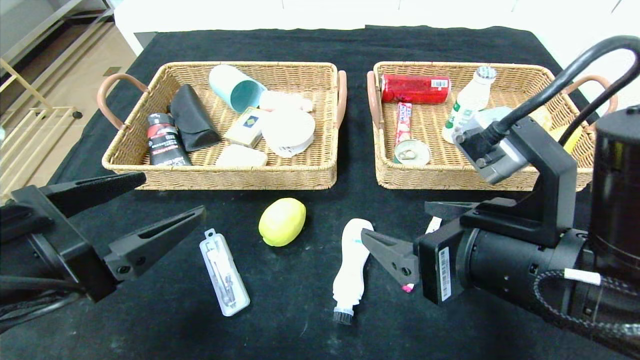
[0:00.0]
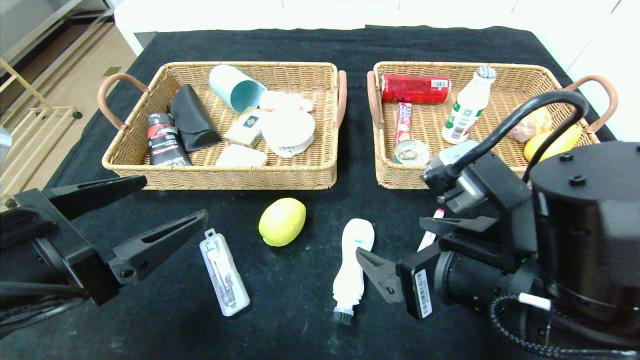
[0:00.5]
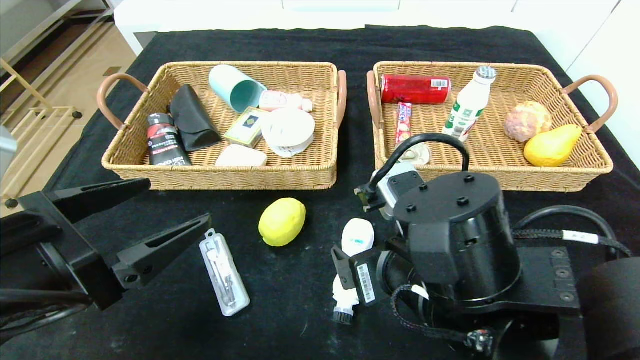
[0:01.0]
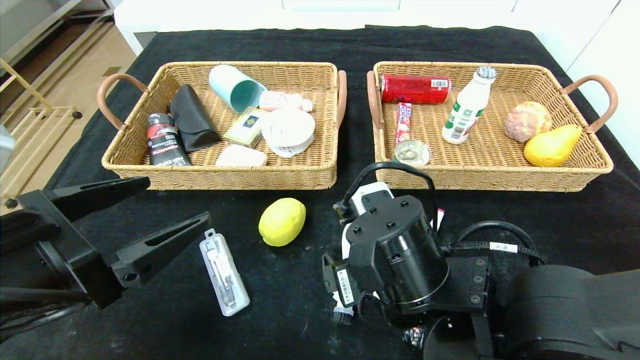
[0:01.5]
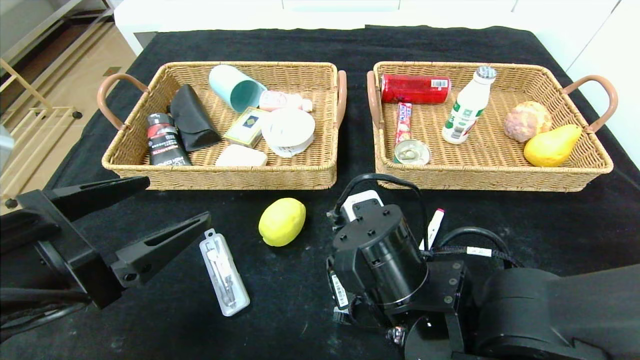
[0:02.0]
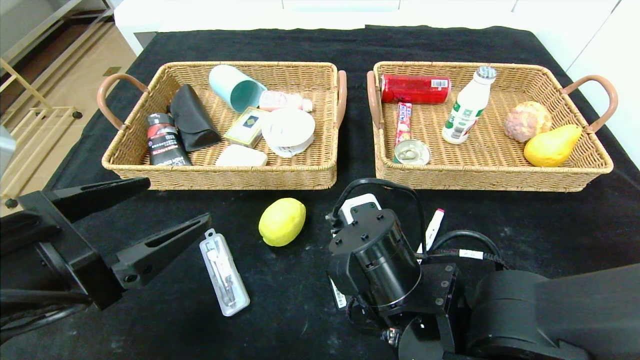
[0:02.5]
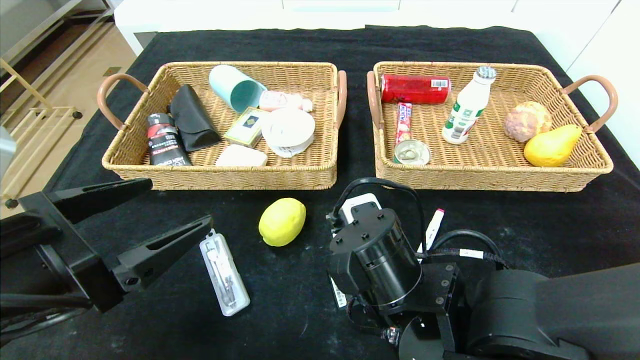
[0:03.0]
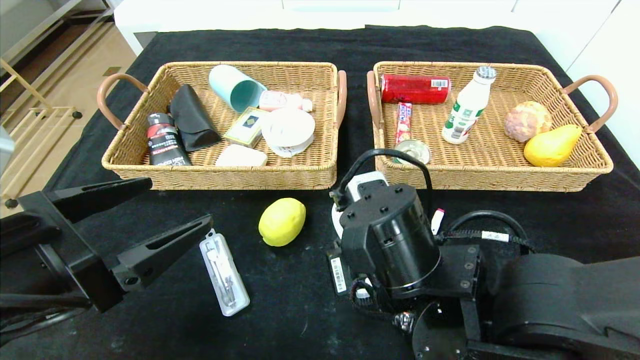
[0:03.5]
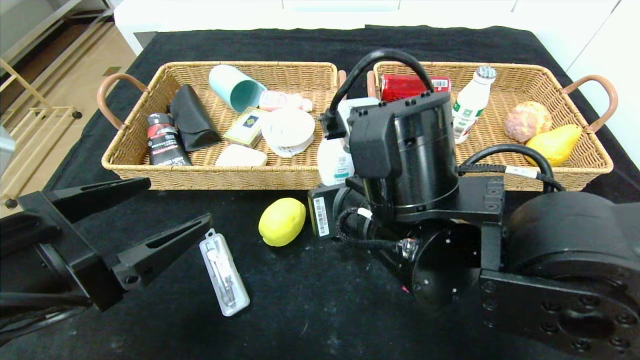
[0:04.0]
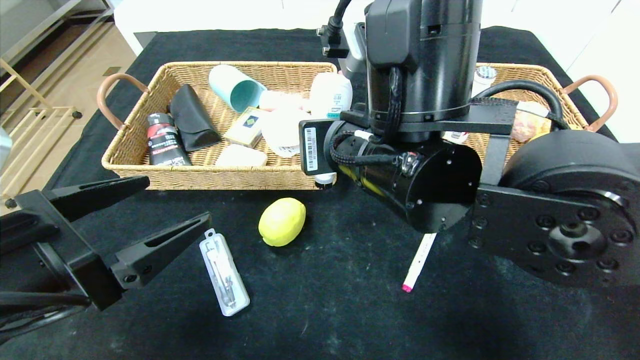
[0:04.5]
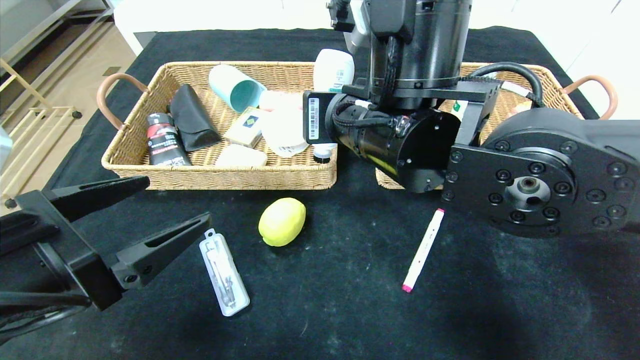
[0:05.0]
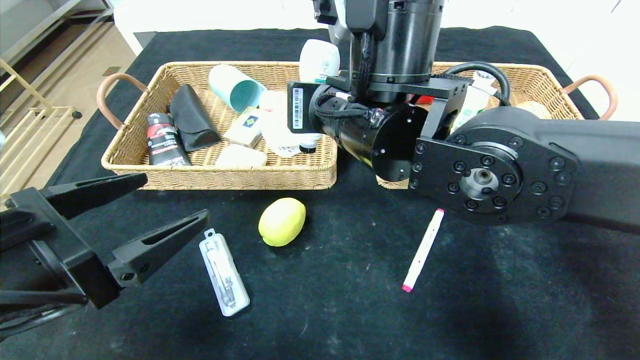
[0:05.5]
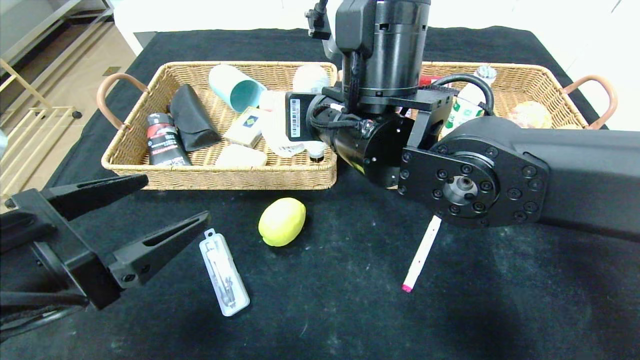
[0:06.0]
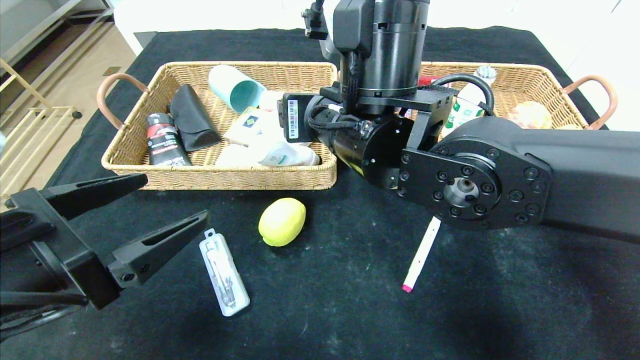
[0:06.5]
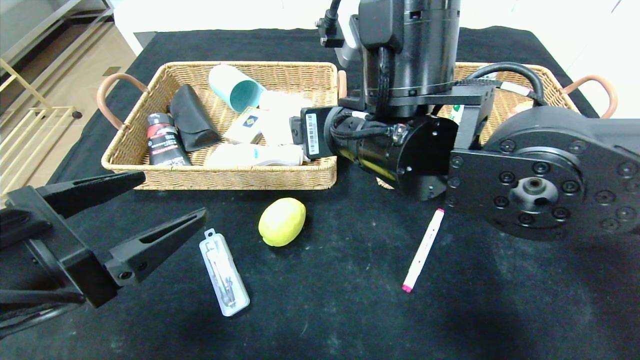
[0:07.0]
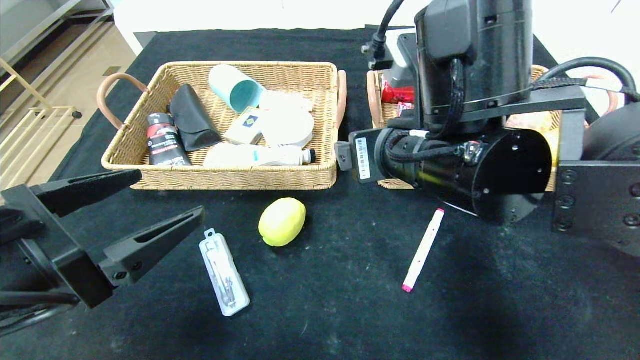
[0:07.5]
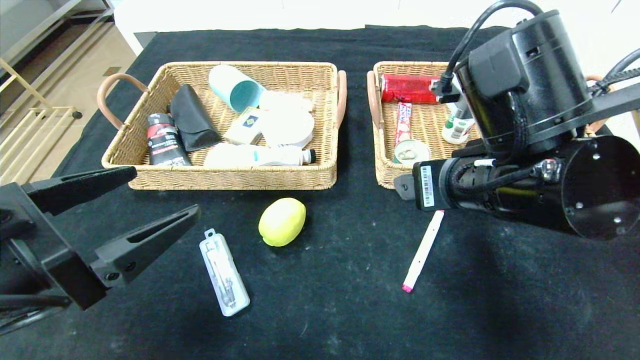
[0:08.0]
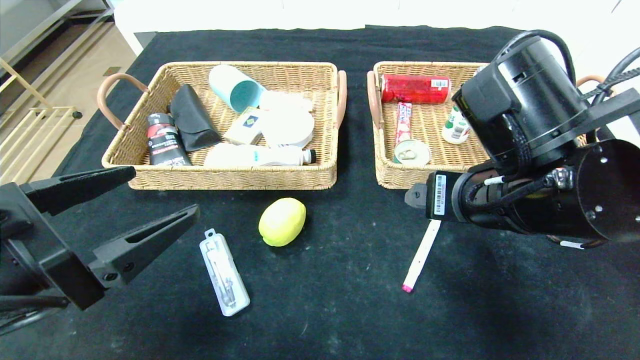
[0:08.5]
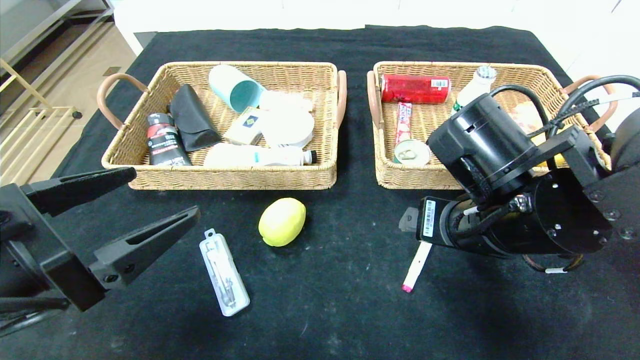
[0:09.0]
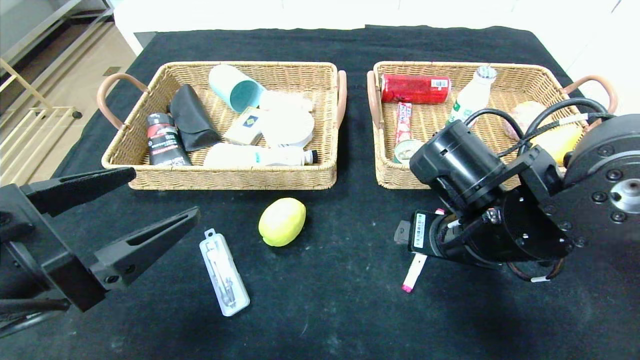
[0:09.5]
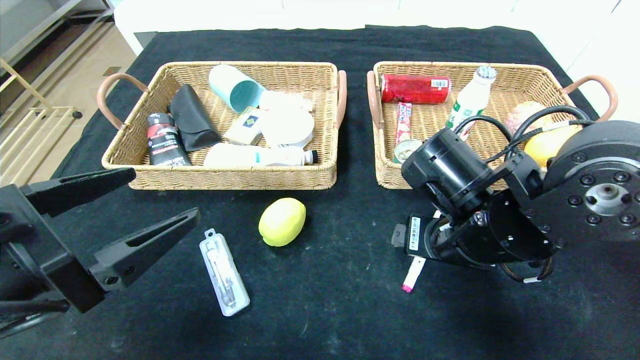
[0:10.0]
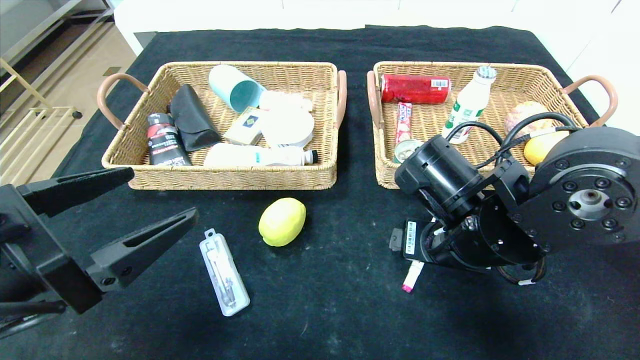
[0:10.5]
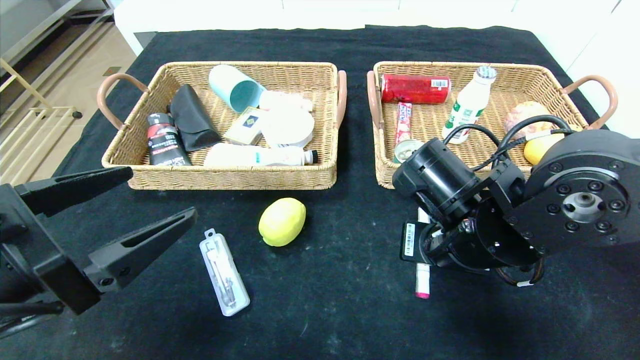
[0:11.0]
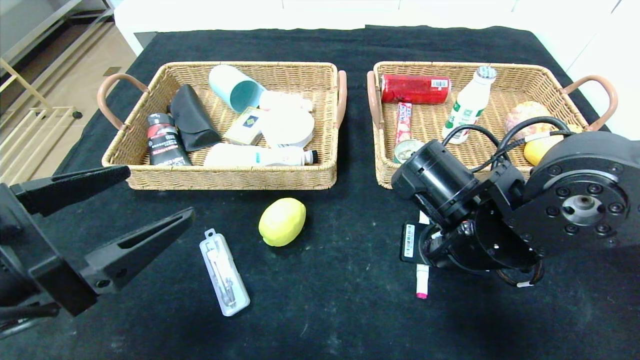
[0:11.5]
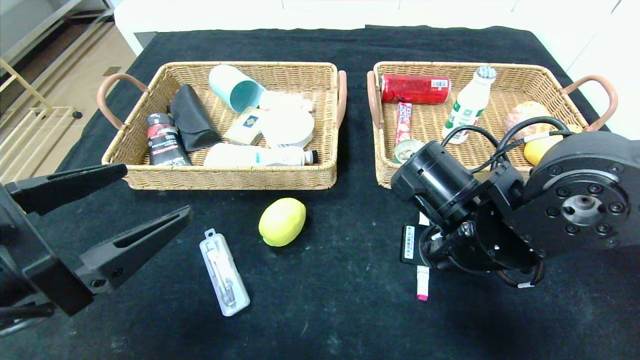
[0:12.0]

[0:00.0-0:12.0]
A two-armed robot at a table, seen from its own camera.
0.0 to 2.0 s: The right gripper shifts about 15 cm downward, to the left and forward.
2.0 to 4.0 s: The right gripper goes about 10 cm upward, and closes its fingers.
4.0 to 6.0 s: The right gripper travels forward and upward by approximately 10 cm.
6.0 to 8.0 s: The right gripper travels to the right and backward by about 15 cm, and opens its fingers.
8.0 to 10.0 s: The right gripper goes approximately 5 cm downward.
10.0 to 12.0 s: The right gripper closes.

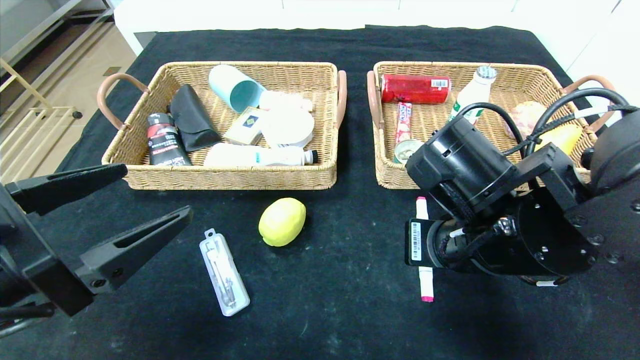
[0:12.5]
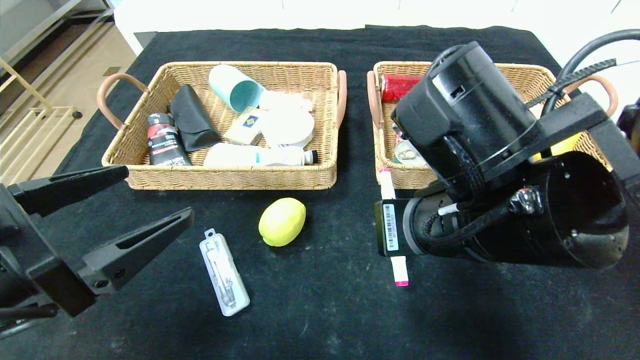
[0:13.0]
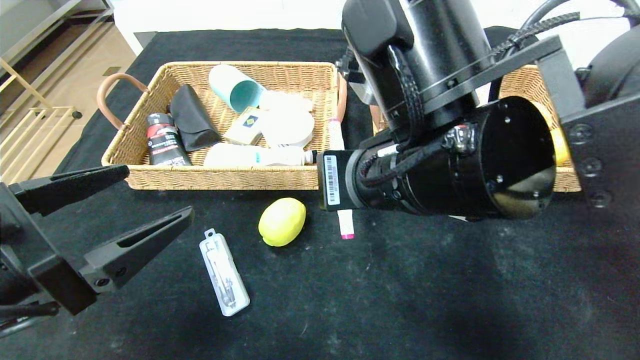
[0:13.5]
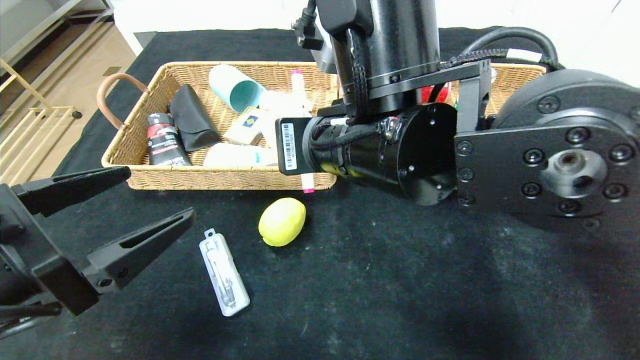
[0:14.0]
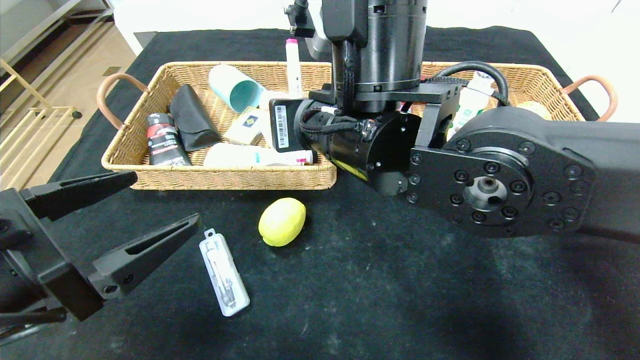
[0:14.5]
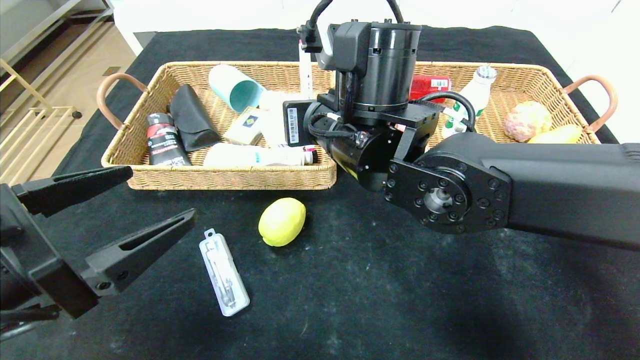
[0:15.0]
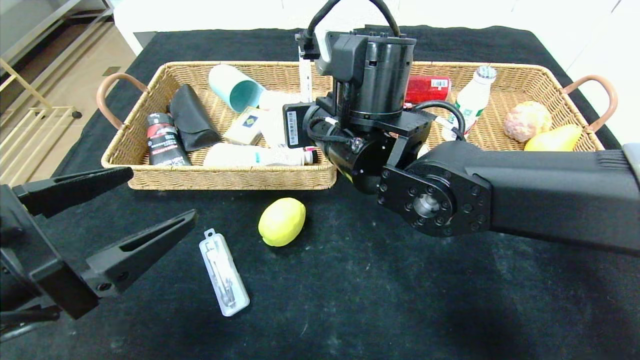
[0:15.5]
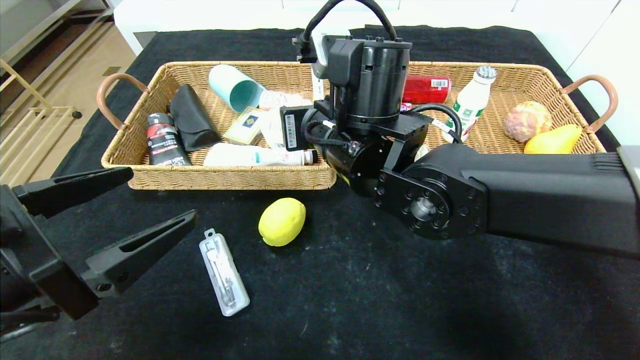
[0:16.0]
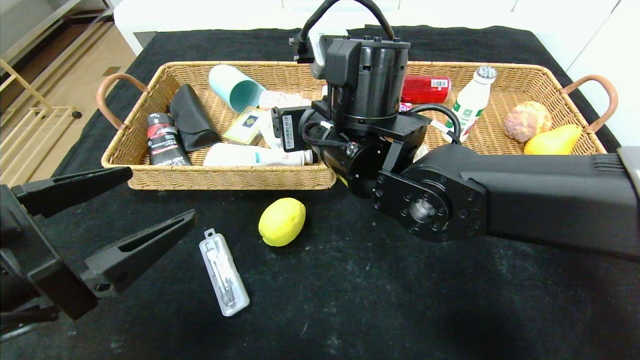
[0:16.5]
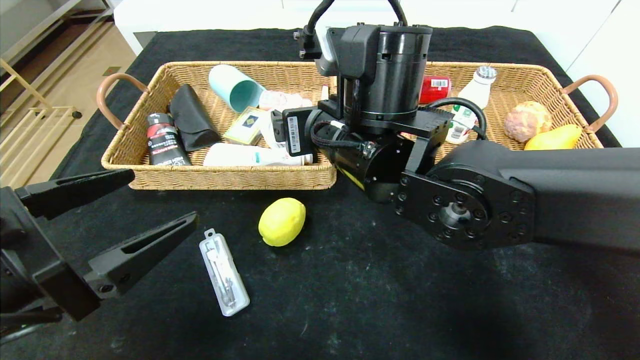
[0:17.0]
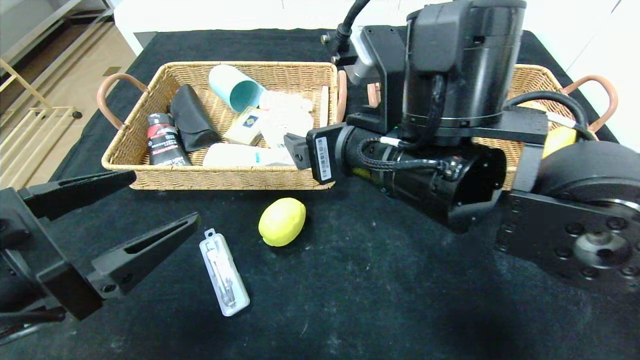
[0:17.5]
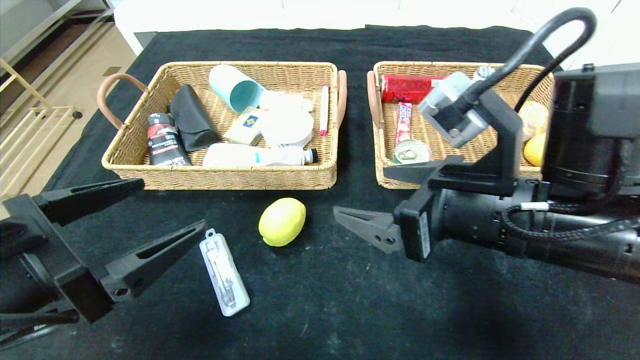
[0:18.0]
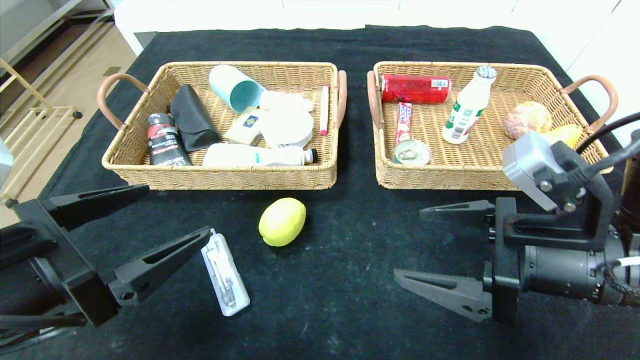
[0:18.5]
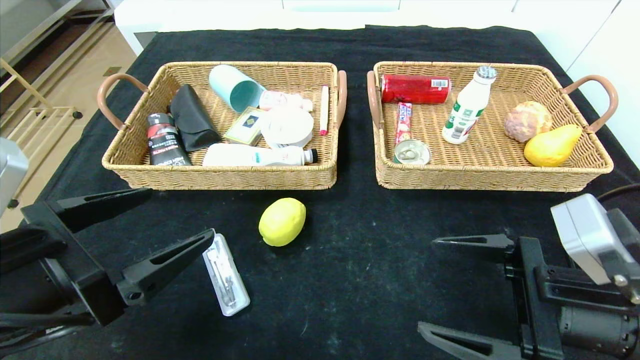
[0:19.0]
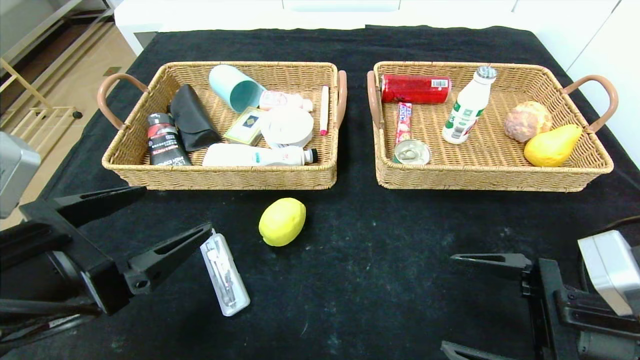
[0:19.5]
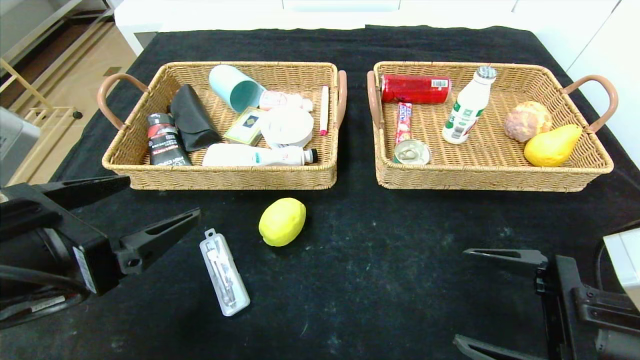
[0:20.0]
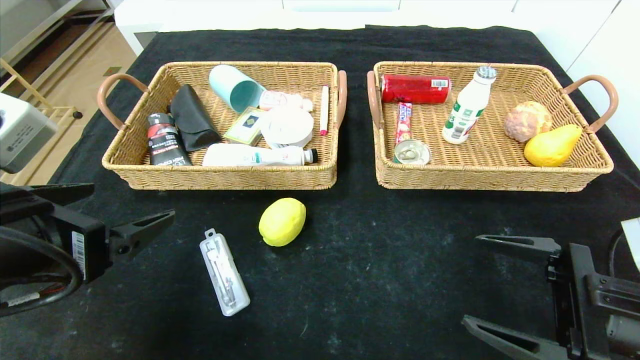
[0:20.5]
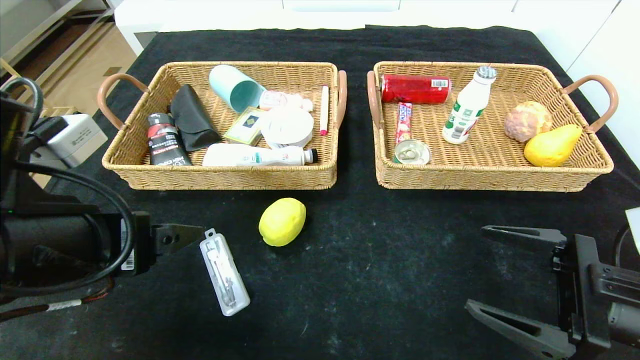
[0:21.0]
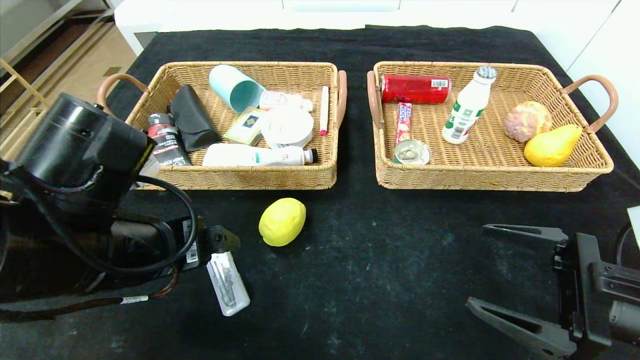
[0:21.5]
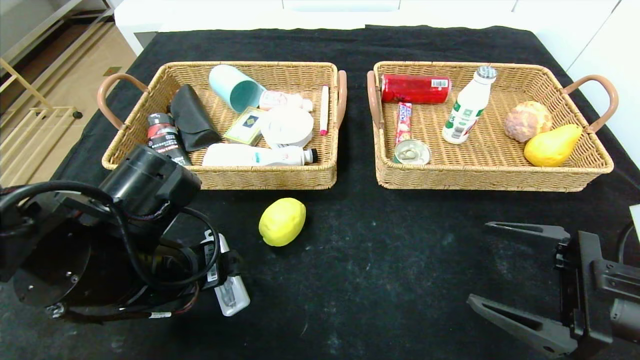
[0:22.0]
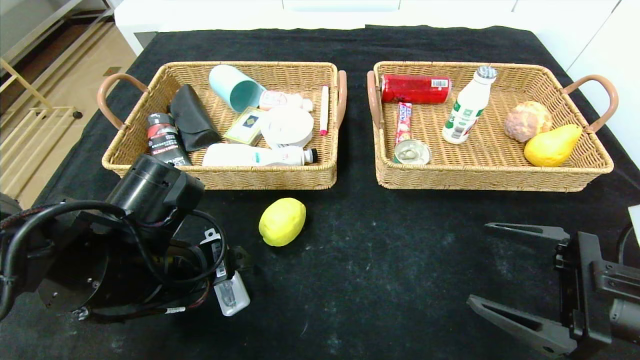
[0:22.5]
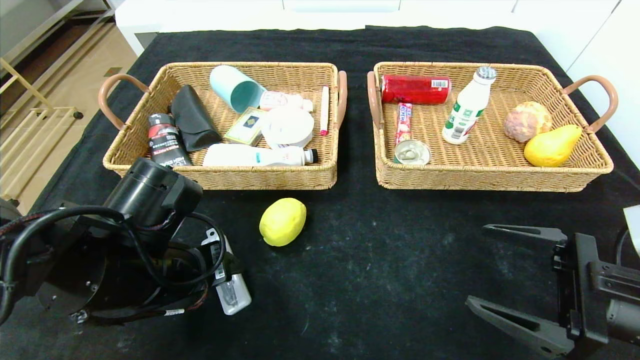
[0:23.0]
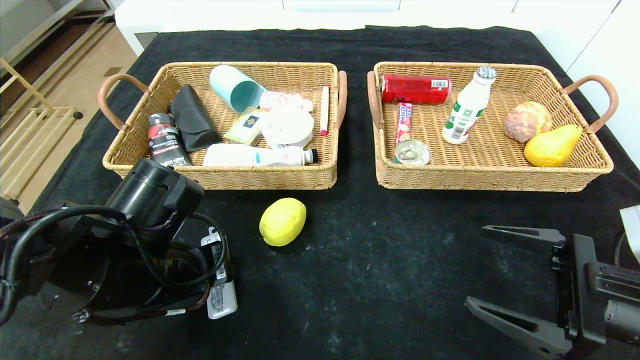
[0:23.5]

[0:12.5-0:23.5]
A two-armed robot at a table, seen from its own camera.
12.5 to 14.5 s: The right gripper travels to the left and upward by about 15 cm.
14.5 to 16.0 s: The right gripper opens its fingers.
16.0 to 18.0 s: The right gripper moves to the right and backward, approximately 15 cm.
18.0 to 20.0 s: The right gripper heads to the right and downward, covering roughly 15 cm.
20.0 to 21.5 s: The left gripper goes approximately 5 cm to the right.
21.5 to 23.5 s: The left gripper is displaced downward by about 5 cm, and closes its fingers.
